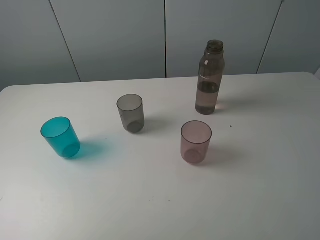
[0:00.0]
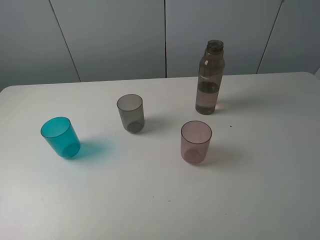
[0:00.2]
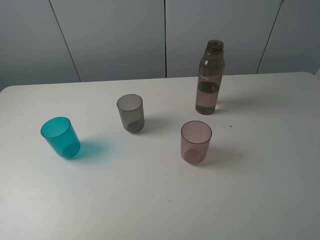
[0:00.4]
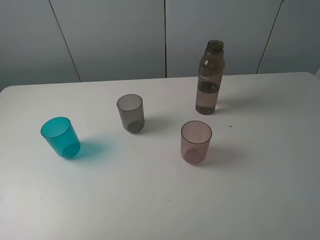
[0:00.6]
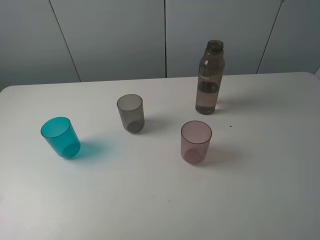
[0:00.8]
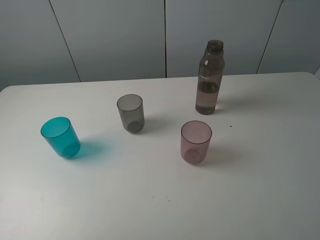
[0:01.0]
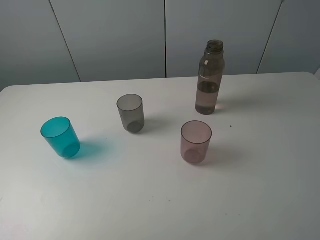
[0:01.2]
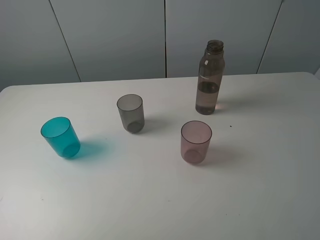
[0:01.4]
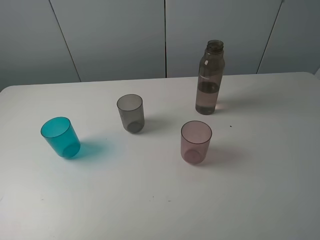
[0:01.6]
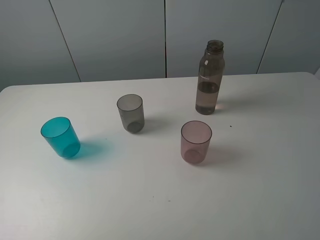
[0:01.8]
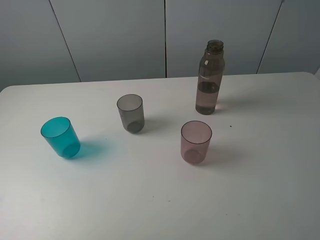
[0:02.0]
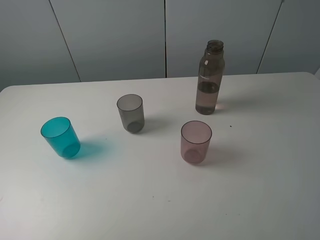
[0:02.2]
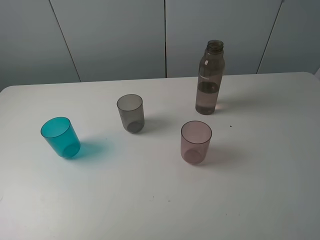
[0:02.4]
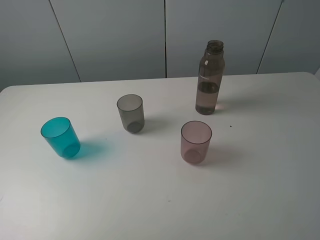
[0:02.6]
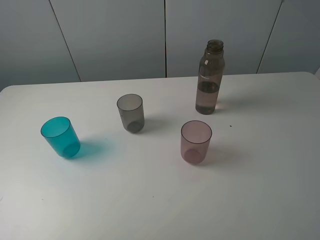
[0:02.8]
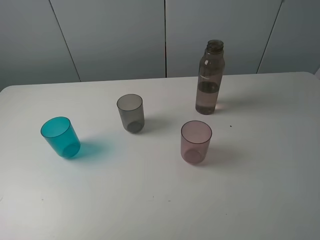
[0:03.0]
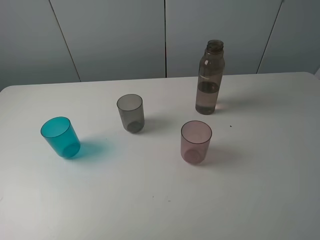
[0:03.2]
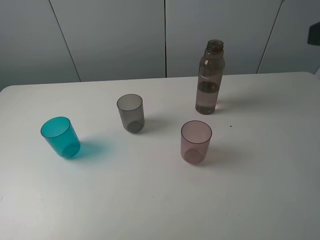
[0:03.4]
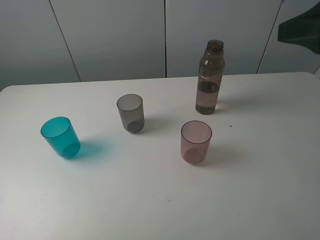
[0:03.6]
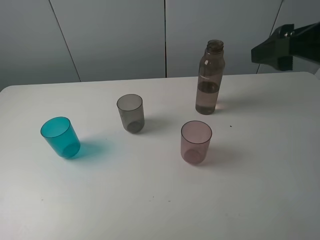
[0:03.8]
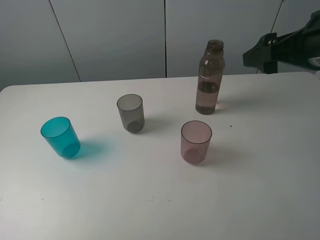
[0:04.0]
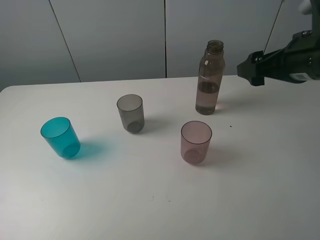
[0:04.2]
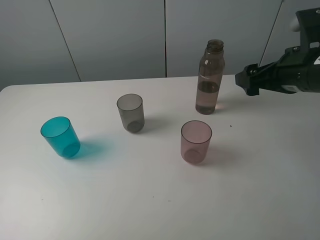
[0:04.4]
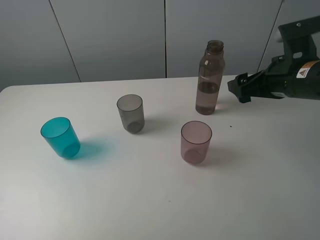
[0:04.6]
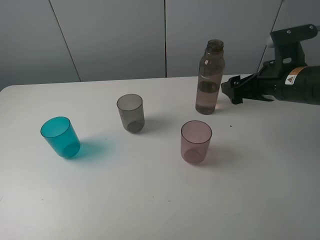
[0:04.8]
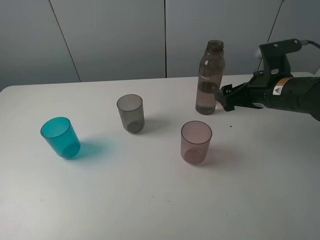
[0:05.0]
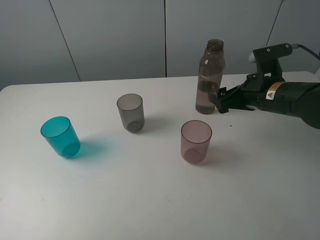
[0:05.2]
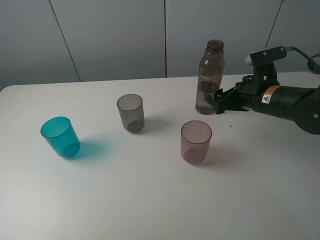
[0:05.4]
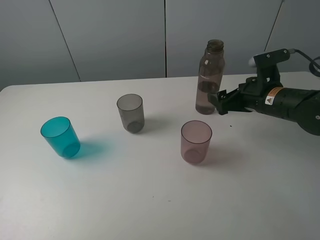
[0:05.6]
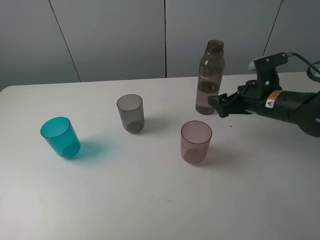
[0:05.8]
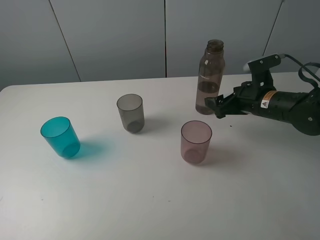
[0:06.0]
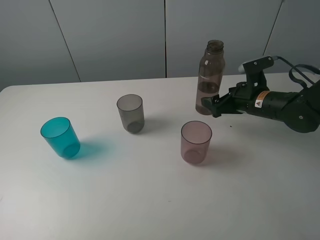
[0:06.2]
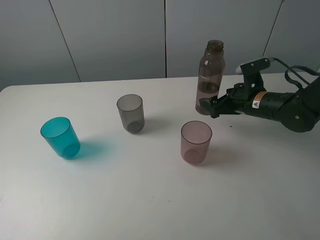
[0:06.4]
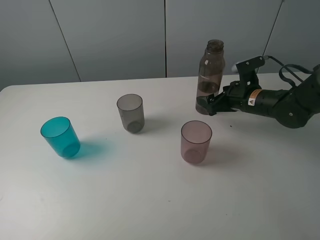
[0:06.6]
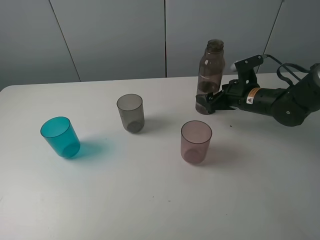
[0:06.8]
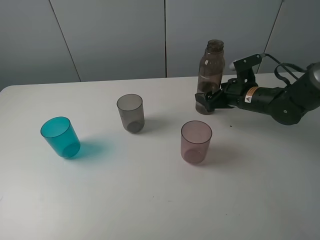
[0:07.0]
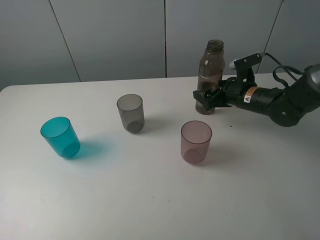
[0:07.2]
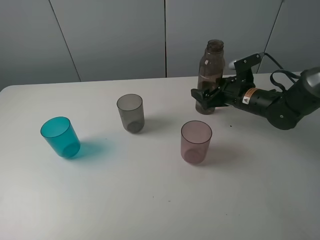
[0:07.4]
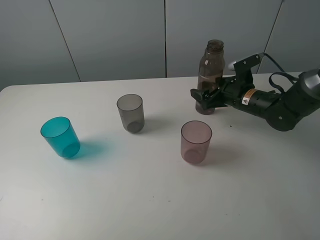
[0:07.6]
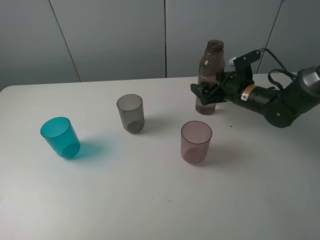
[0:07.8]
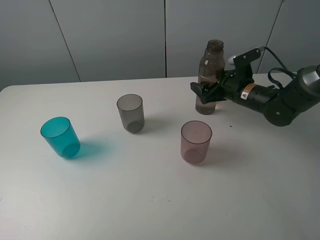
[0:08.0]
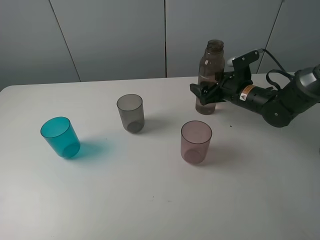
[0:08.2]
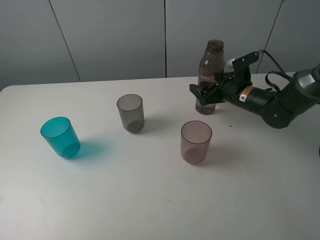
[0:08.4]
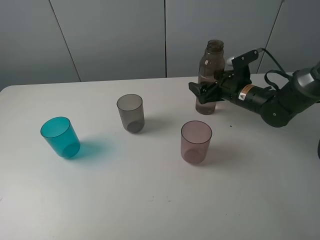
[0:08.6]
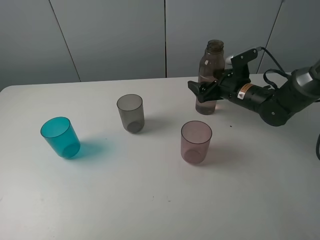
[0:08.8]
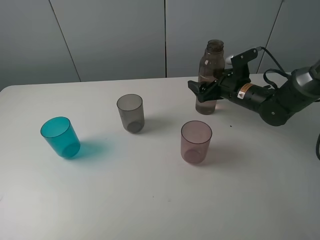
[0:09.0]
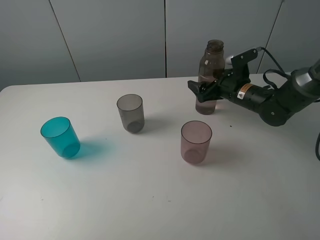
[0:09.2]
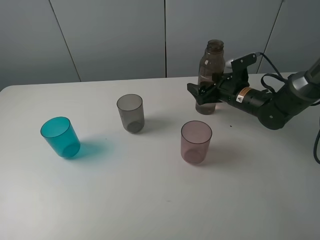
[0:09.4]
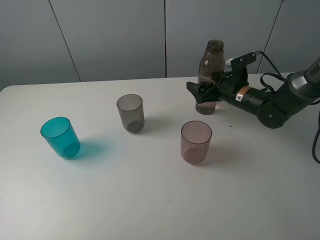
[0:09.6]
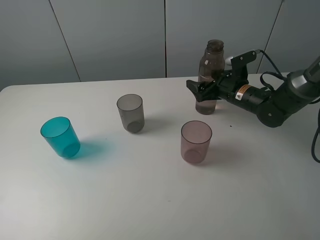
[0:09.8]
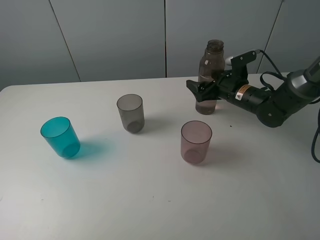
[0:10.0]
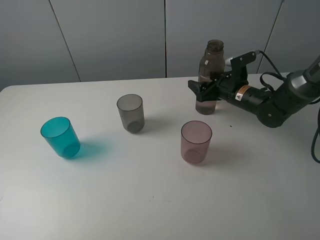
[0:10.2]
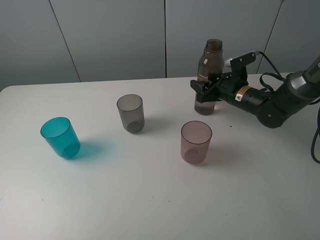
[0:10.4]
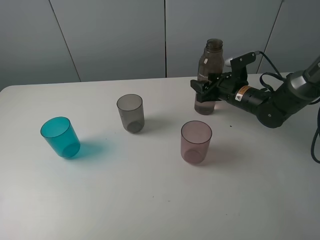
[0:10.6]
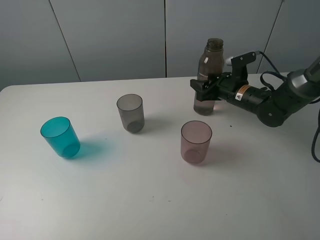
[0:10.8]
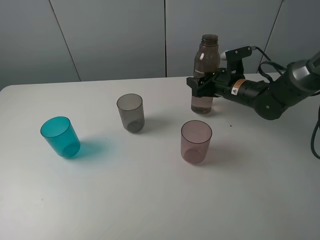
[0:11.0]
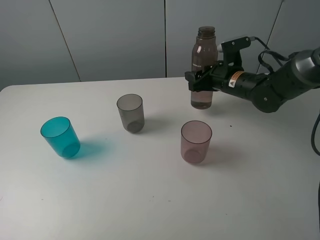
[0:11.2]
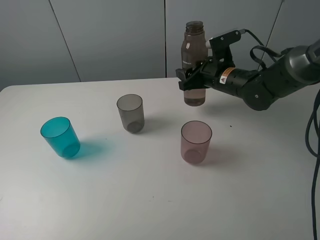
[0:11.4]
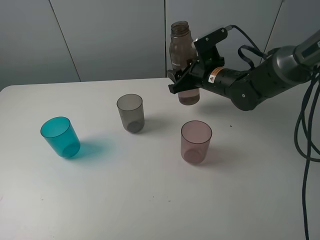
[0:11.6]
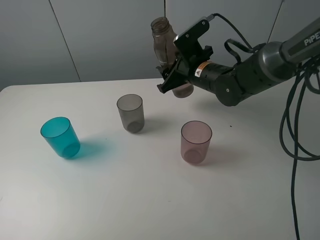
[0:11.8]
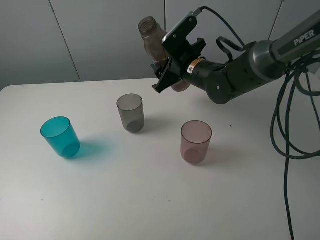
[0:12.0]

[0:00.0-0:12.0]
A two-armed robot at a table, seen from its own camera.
Task of the whole recording: pick up the bottle filled with water and pour water into the middle cup of the three cups.
Step, 0:00.0 to 0:10.4: Grasp the transparent bottle with the right gripper.
0:00.0 to 0:01.6: The two grippers keep their place.
0:03.0 to 0:04.4: The right gripper travels forward and downward by some 20 cm.
0:04.4 to 0:06.0: The right gripper is displaced downward and forward by about 15 cm.
0:06.0 to 0:07.6: The right gripper ends up about 5 cm from where it was.
0:07.6 to 0:09.0: The grippers make only small movements.
0:09.0 to 0:10.4: The right gripper closes up.
0:10.4 to 0:12.0: The right gripper is displaced to the left and upward by roughly 15 cm.

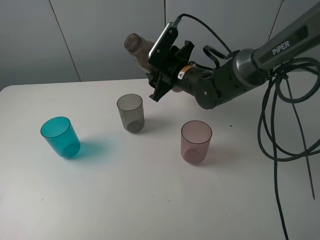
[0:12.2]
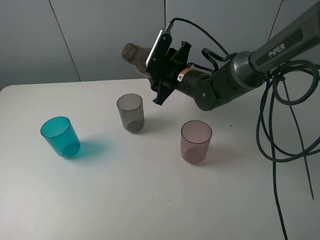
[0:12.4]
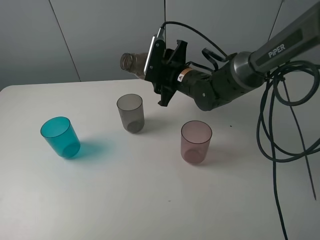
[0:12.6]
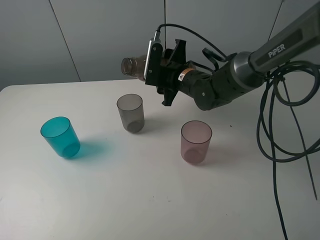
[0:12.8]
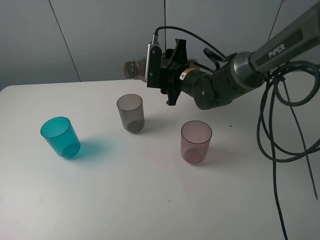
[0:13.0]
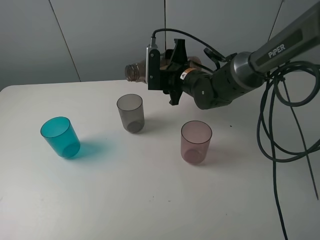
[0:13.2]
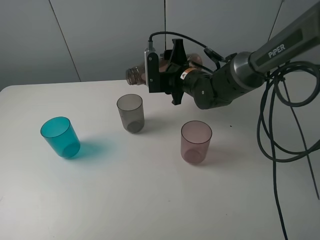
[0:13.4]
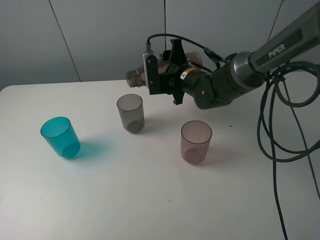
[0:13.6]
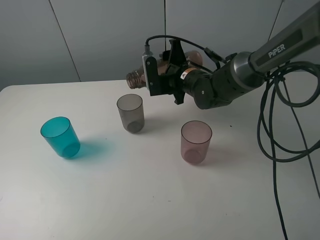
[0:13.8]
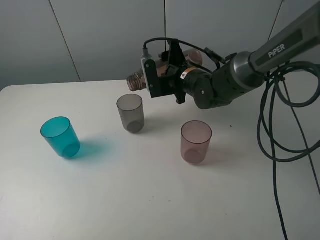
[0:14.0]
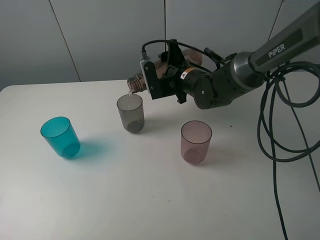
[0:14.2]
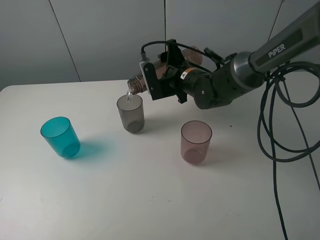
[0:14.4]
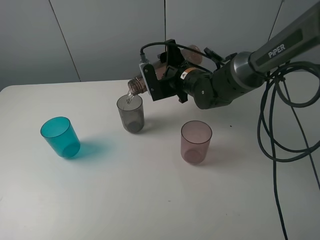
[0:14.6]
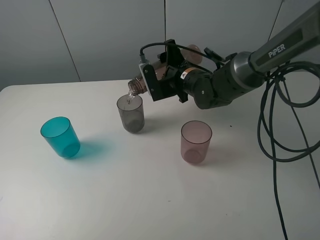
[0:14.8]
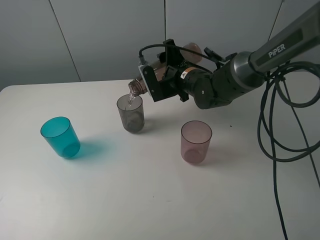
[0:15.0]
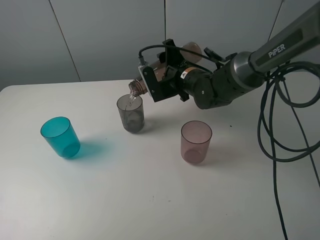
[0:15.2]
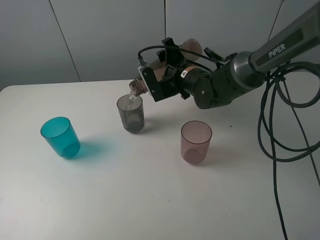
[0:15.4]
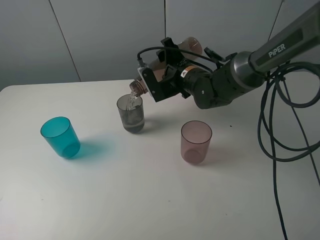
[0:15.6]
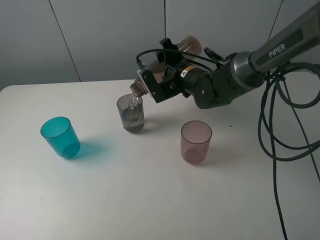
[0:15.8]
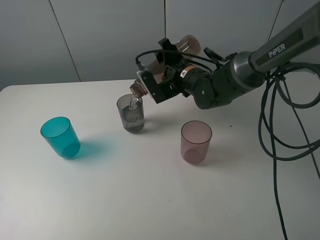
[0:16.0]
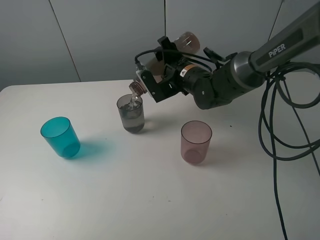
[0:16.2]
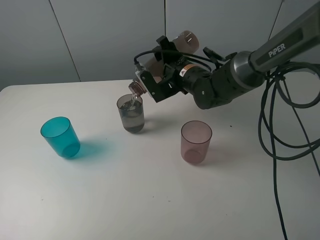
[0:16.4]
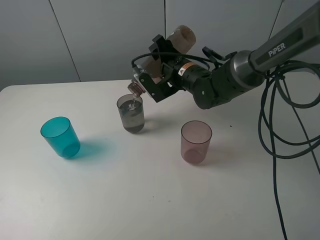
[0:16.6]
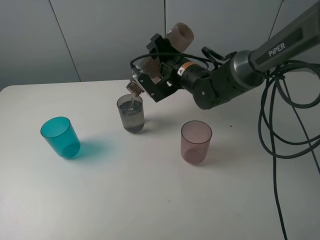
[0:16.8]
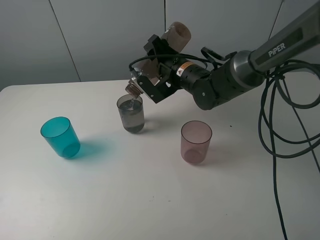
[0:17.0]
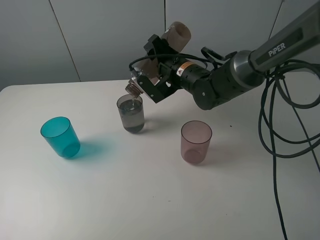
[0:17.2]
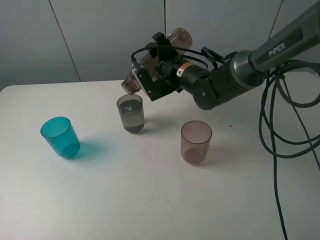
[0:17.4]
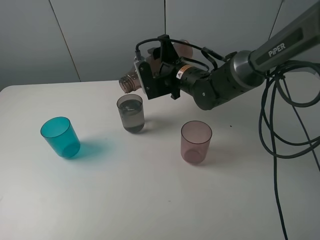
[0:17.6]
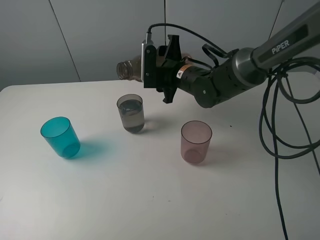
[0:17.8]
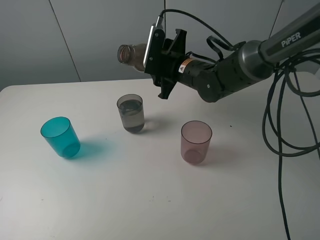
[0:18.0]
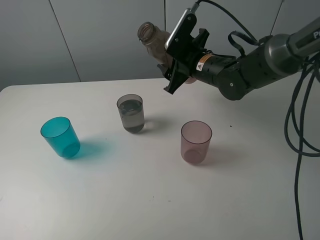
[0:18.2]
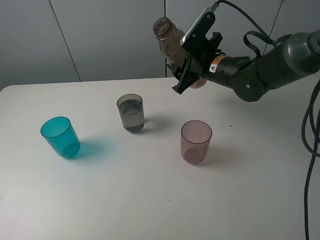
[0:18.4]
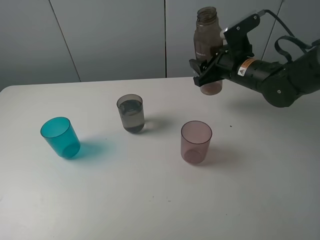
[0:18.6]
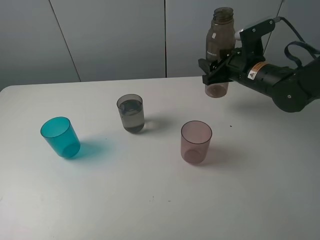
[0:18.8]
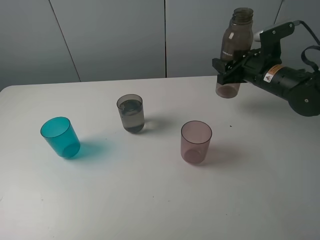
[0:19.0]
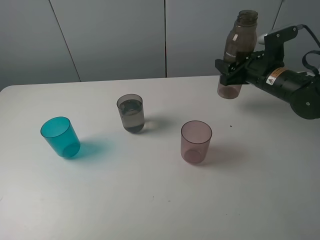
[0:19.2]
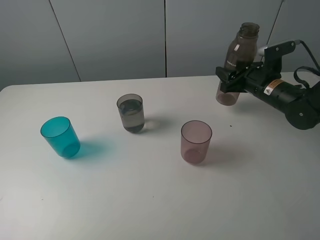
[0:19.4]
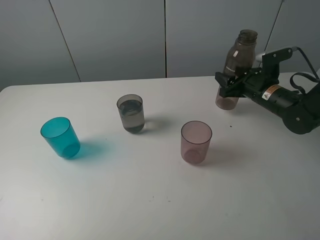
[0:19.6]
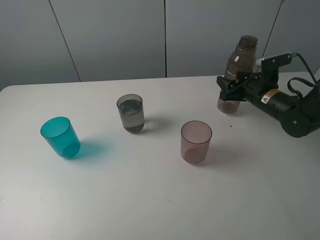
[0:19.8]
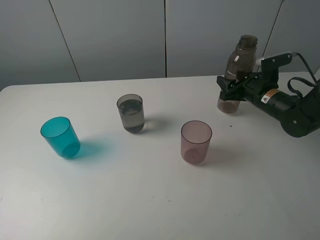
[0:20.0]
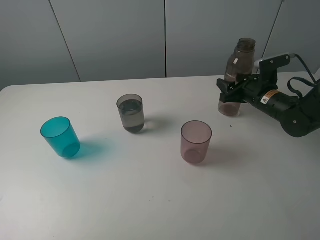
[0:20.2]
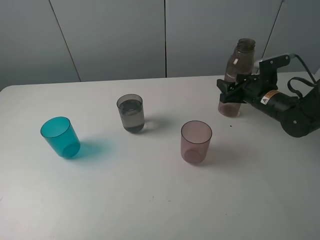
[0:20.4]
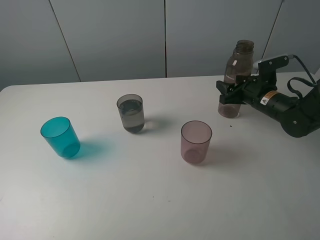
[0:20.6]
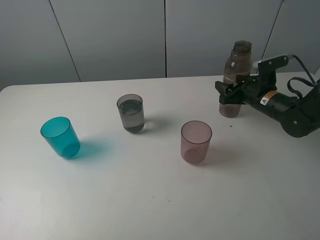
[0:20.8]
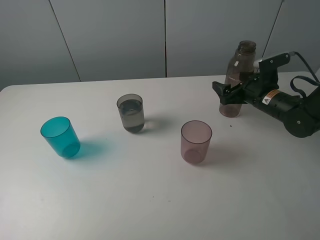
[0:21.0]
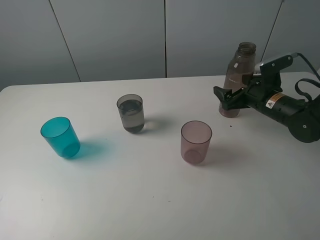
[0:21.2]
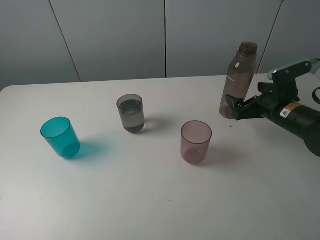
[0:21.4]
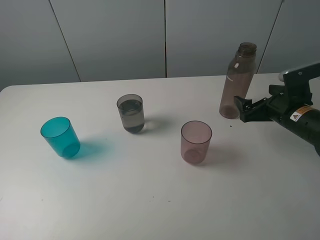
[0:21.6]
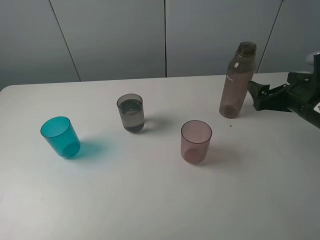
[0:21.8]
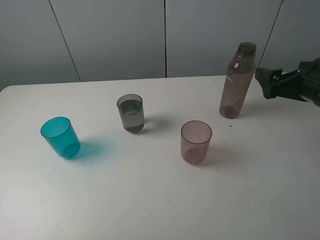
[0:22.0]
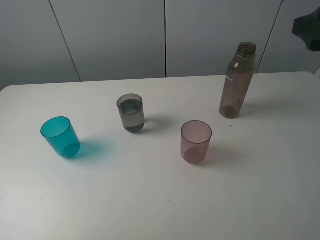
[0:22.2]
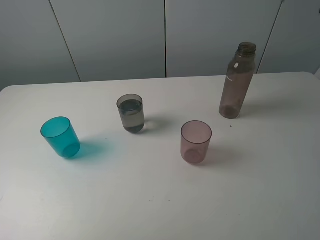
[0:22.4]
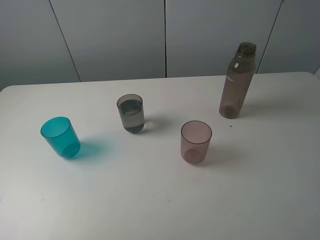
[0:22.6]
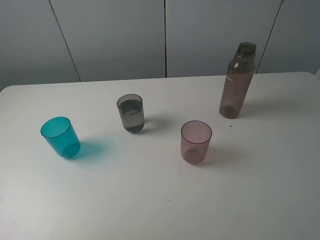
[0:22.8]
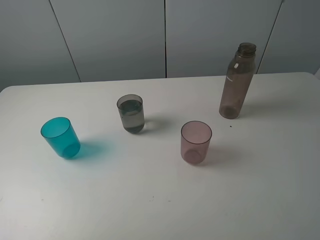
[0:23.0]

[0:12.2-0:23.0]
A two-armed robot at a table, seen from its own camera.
Task of the whole recording: pick up the bottle filled with water and pour water into the middle cup of the three cups.
Step, 0:12.2 to 0:14.0: Pour water from transparent bottle to grey cup with the right gripper.
Step, 0:14.2 to 0:21.0: Place the transparent bottle with the right gripper.
0:13.8 to 0:15.2: The grippers move only a little.
0:15.2 to 0:16.8: The grippers stay close to where they were, moving slightly.
0:16.8 to 0:18.4: The right gripper is displaced to the right by roughly 5 cm.
0:18.4 to 0:20.0: The right gripper goes about 15 cm to the right and downward.
0:20.0 to 0:21.4: The right gripper moves backward, approximately 5 cm, and opens up.
0:21.4 to 0:23.0: The right gripper moves backward and upward, approximately 35 cm.
